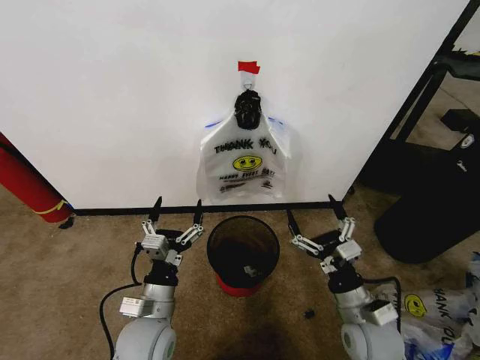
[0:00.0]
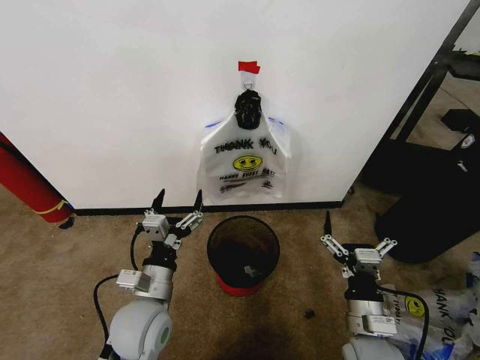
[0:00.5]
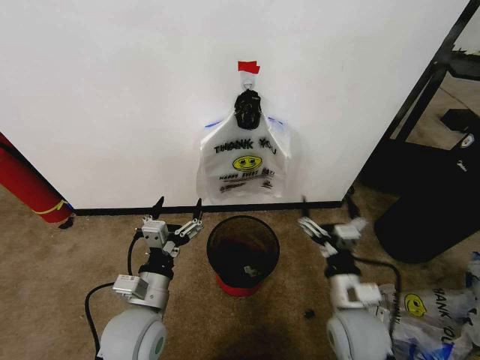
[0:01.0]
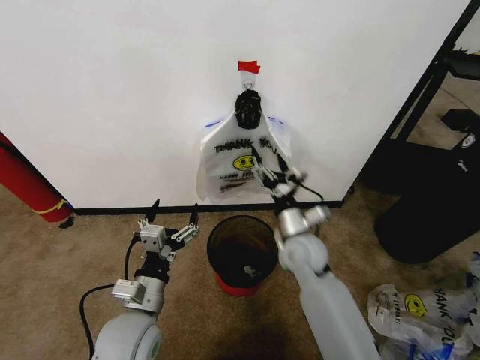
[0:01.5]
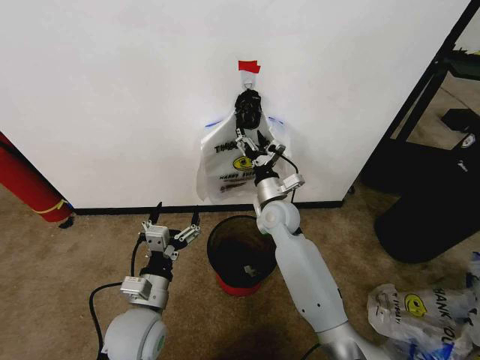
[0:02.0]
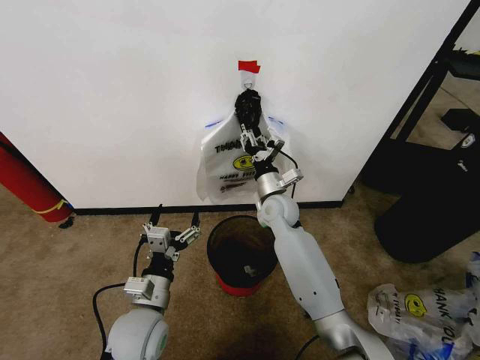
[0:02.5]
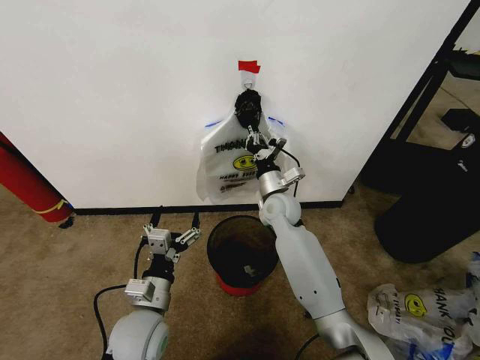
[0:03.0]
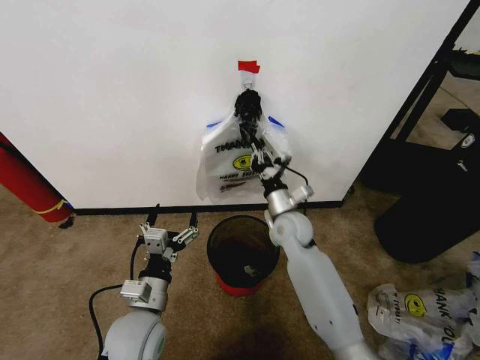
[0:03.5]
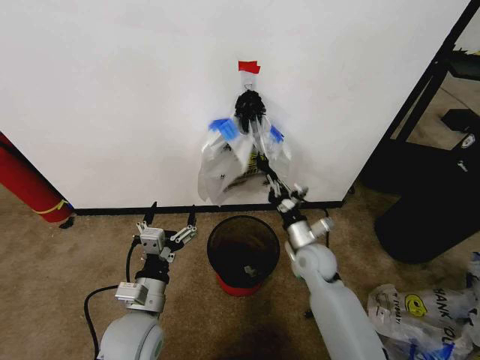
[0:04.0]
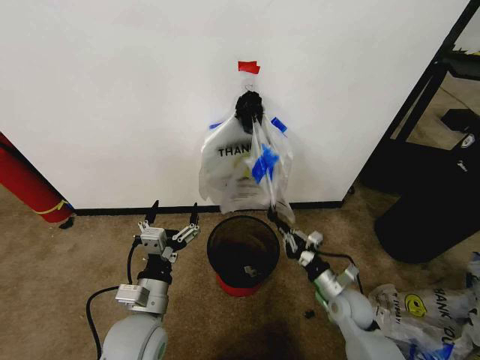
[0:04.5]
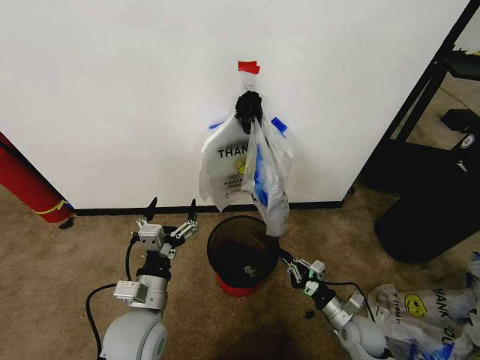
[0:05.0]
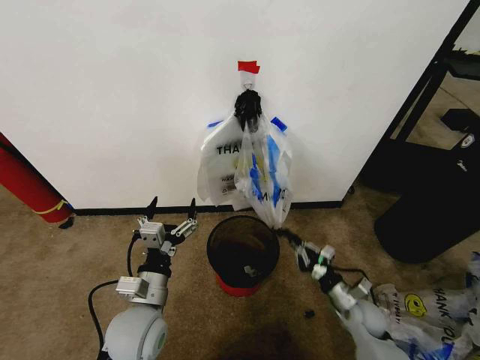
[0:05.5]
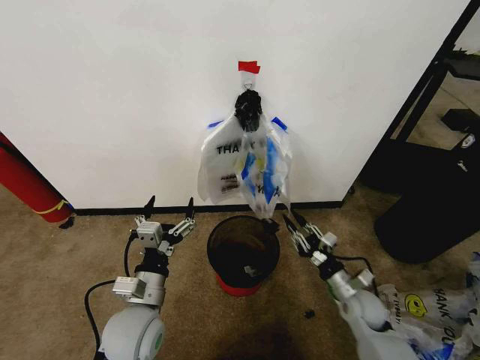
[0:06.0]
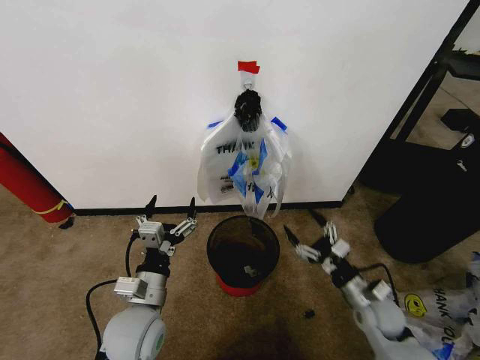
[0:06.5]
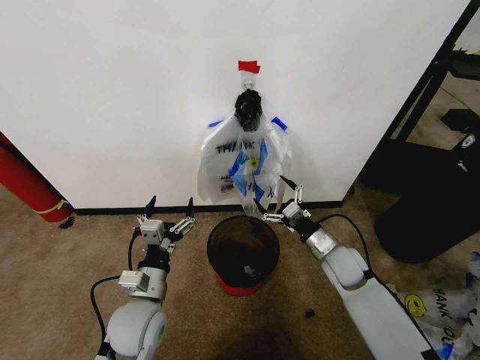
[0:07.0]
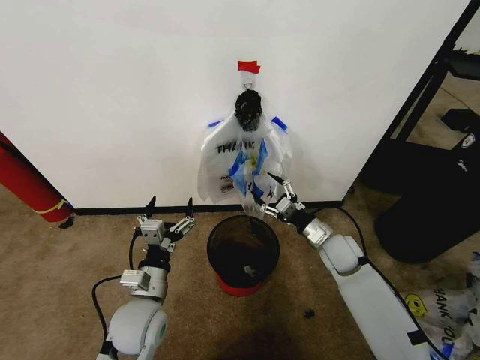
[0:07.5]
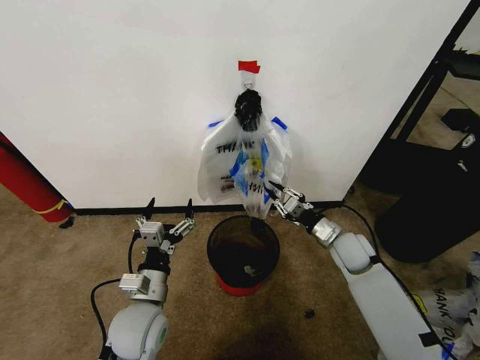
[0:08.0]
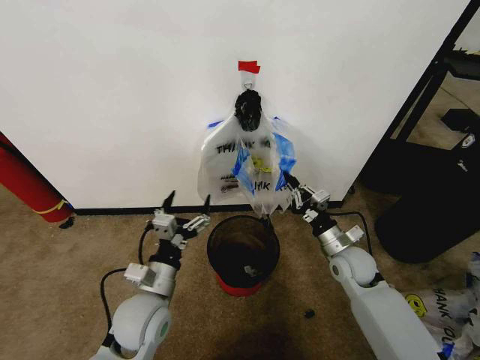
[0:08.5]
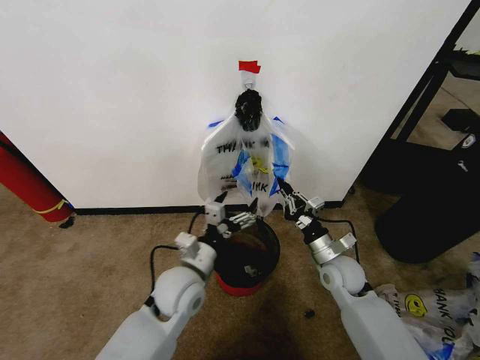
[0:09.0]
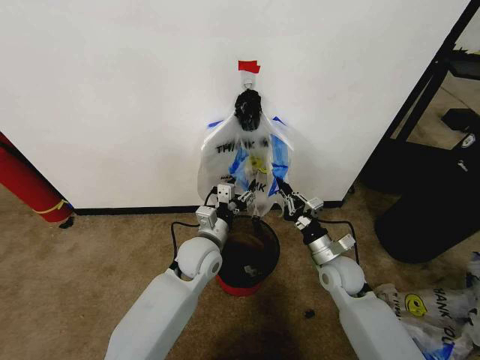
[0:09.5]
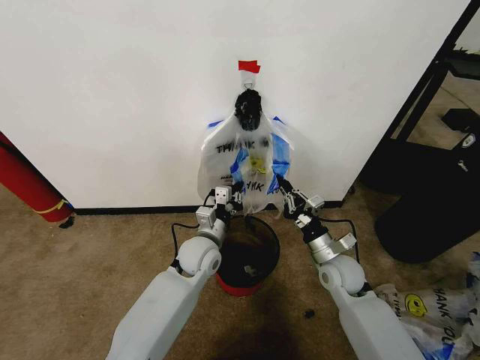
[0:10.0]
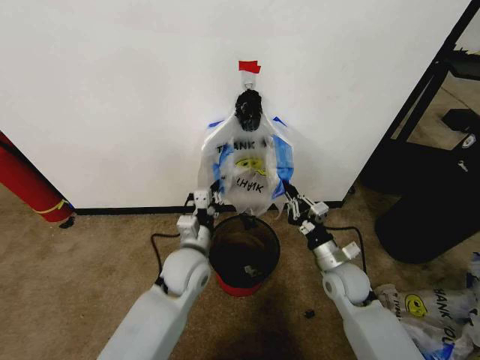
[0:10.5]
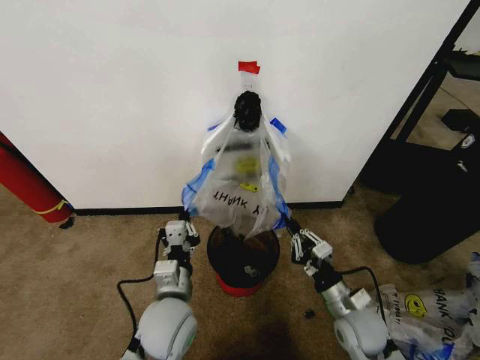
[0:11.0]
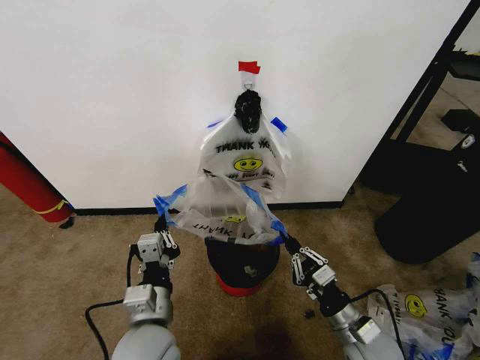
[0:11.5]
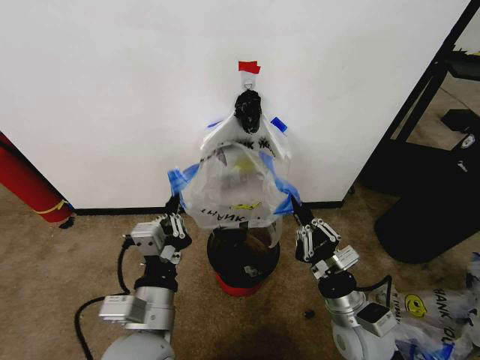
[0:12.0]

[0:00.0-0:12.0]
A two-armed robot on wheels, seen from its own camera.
Task of the whole recording: Pick up the garbage bag from the wall and place it over the trash bin.
0:02.0 to 0:04.0: The right gripper shifts approximately 15 cm to the right, backward and downward, and closes up.
0:04.0 to 0:06.0: The right gripper heads to the right, backward and downward, covering approximately 15 cm.
0:06.0 to 0:08.0: The right gripper goes roughly 15 cm forward and upward, and opens, then closes once more.
0:08.0 to 0:10.0: The right gripper moves backward, roughly 5 cm. Meanwhile the left gripper is displaced forward and to the right by approximately 20 cm, and closes up.
0:10.0 to 0:12.0: The left gripper is displaced backward and upward by some 25 cm; the right gripper goes roughly 15 cm backward.

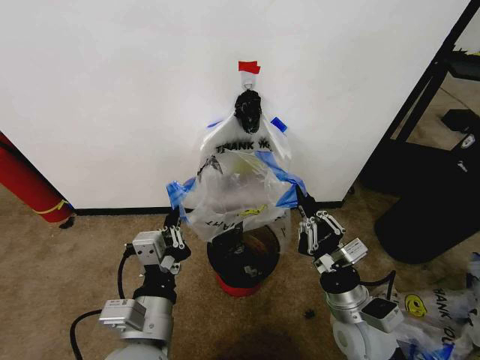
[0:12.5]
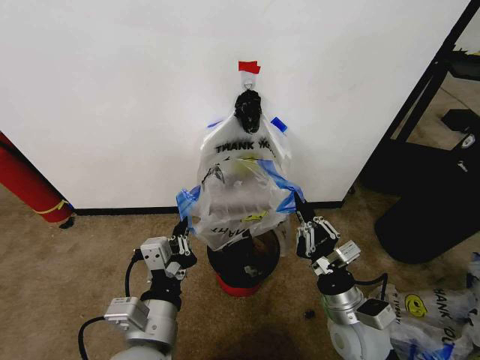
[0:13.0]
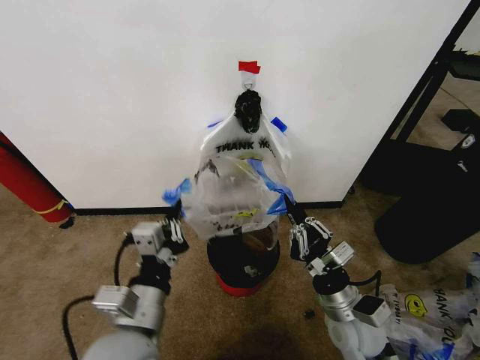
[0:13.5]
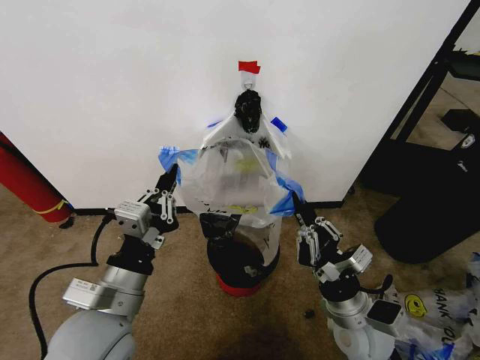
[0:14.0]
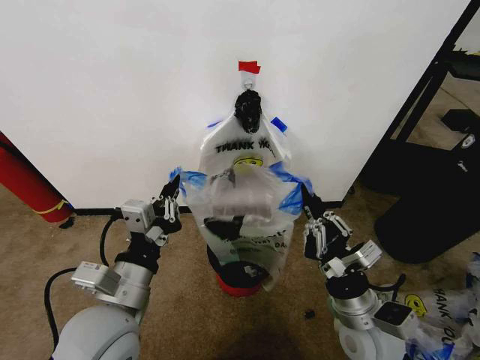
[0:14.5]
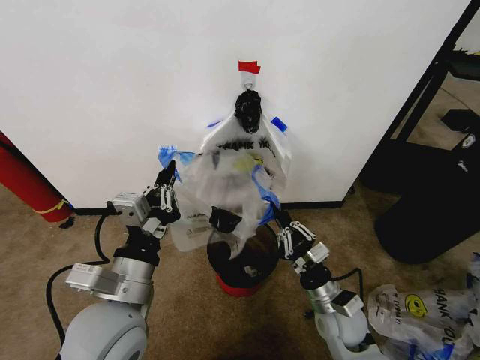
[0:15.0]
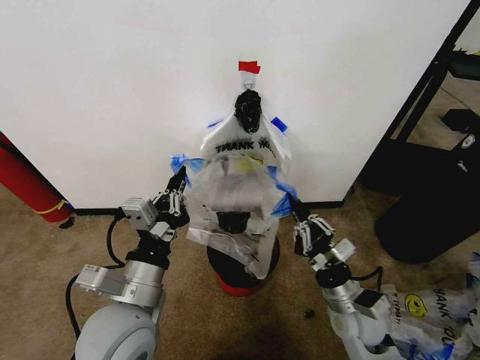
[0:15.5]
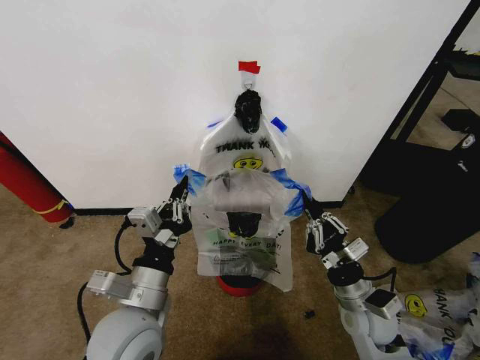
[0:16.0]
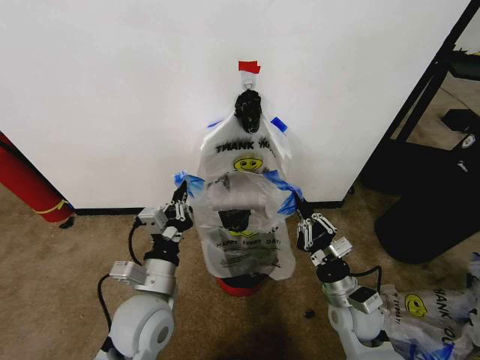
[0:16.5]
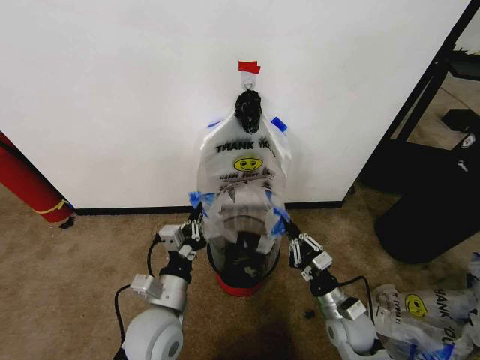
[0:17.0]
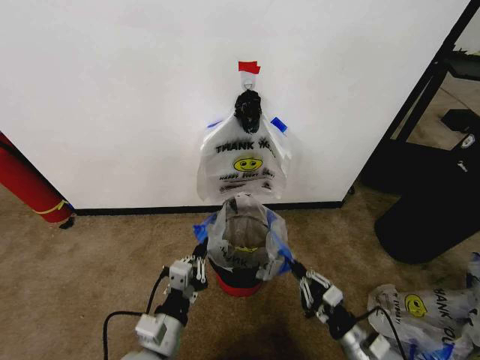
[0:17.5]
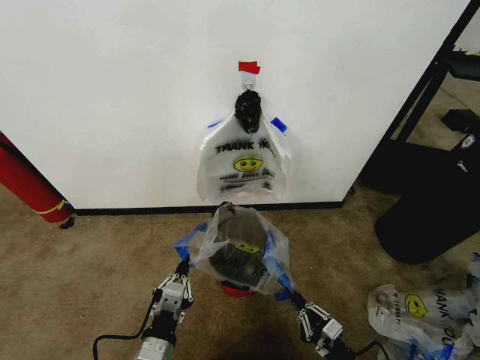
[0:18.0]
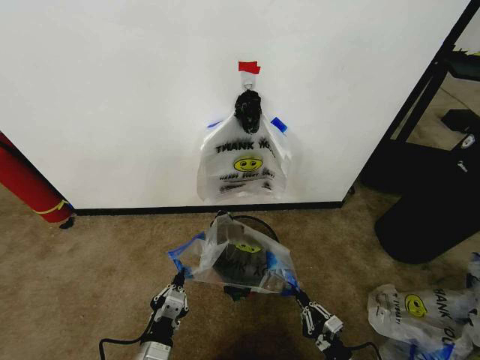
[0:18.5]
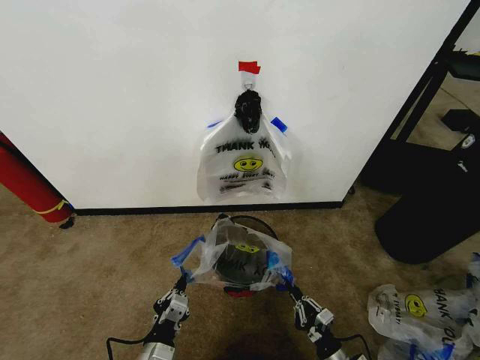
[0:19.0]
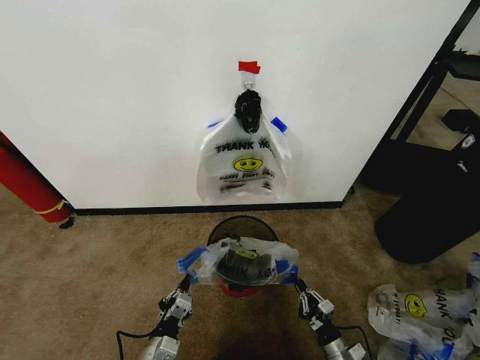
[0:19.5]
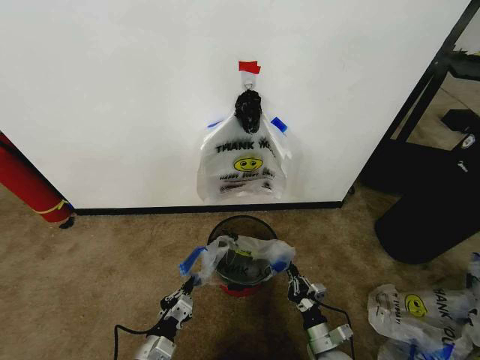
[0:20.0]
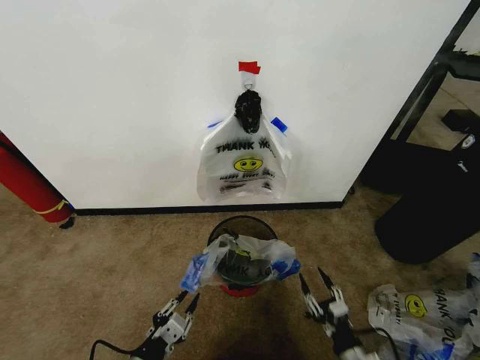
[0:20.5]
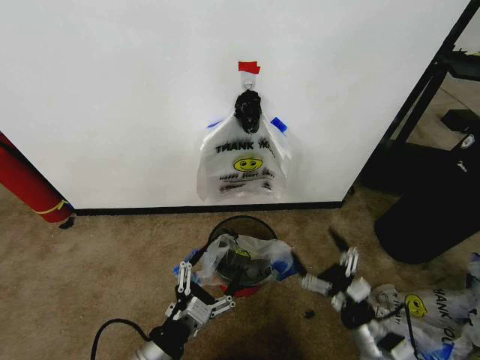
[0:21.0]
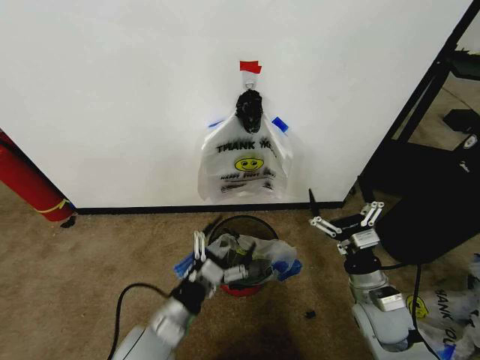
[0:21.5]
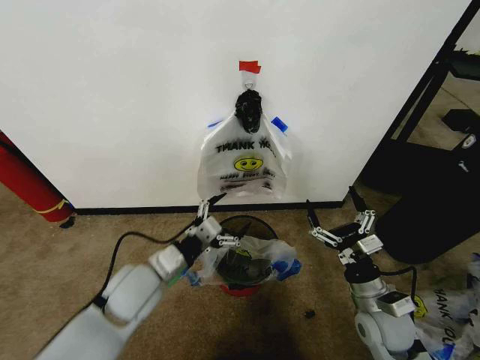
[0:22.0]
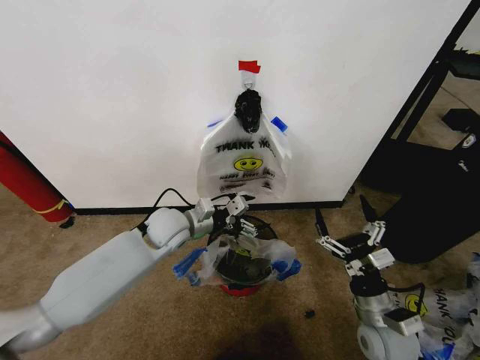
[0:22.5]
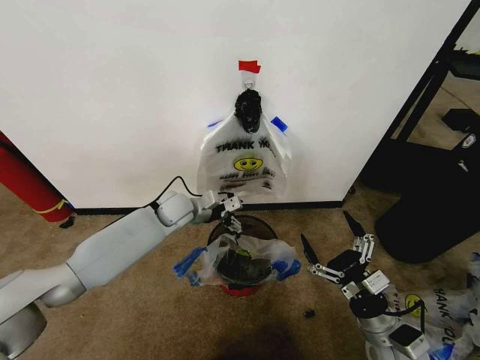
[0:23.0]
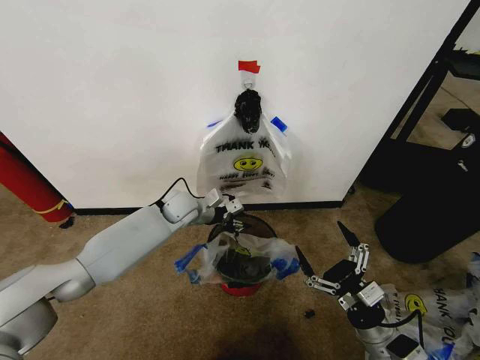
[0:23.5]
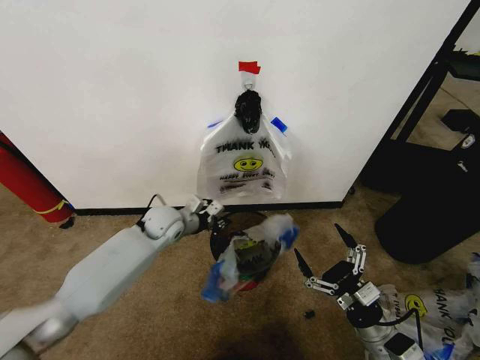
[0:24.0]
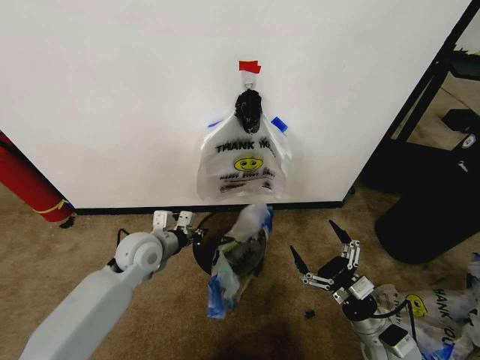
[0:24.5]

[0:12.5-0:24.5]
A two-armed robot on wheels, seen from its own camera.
Task of the whole recording: Pick up the garbage bag from the wall and place it over the trash bin.
0:12.5 to 0:14.5: The left gripper moves to the left, some 5 cm.
0:14.5 to 0:16.5: The right gripper heads downward and forward, covering approximately 10 cm; the left gripper heads downward, covering roughly 5 cm.
0:16.5 to 0:18.5: Both grippers travel together downward and backward, some 20 cm.
0:18.5 to 0:20.5: The right gripper opens up. The left gripper heads to the left, covering roughly 5 cm.
0:20.5 to 0:22.5: The left gripper heads forward, covering about 35 cm, and opens its fingers. The right gripper travels upward and forward by roughly 15 cm, and opens up.
0:22.5 to 0:24.5: The left gripper shifts about 10 cm to the left and backward, and closes up.

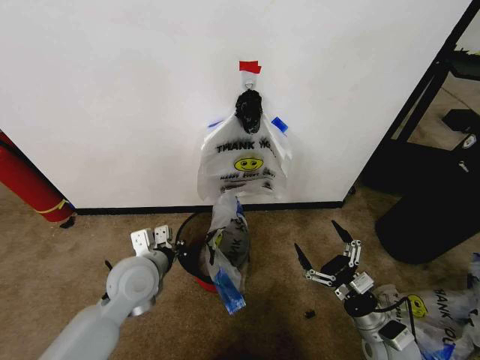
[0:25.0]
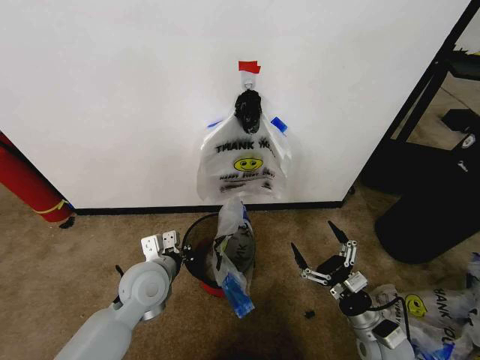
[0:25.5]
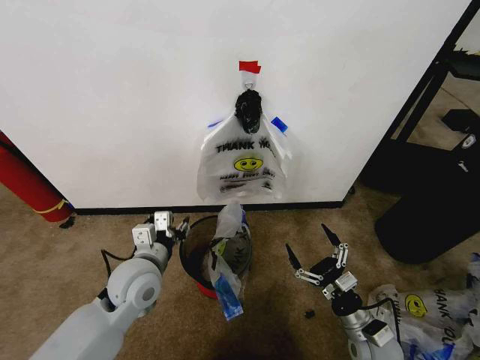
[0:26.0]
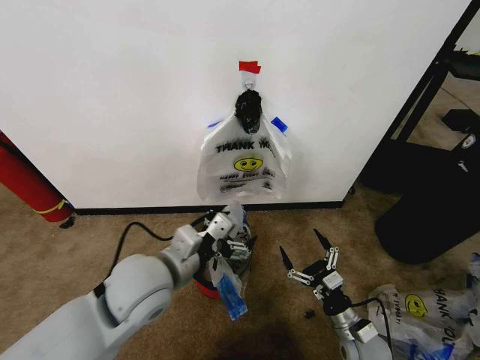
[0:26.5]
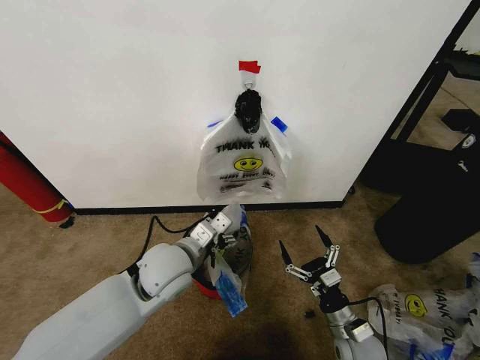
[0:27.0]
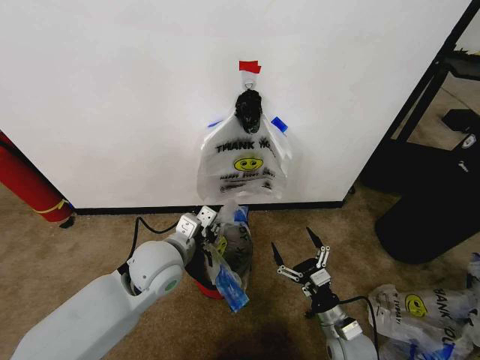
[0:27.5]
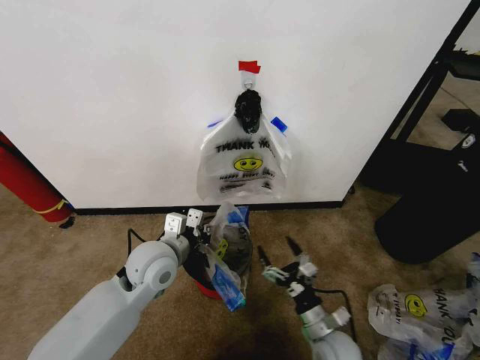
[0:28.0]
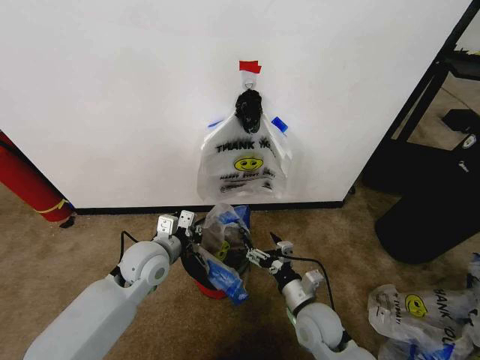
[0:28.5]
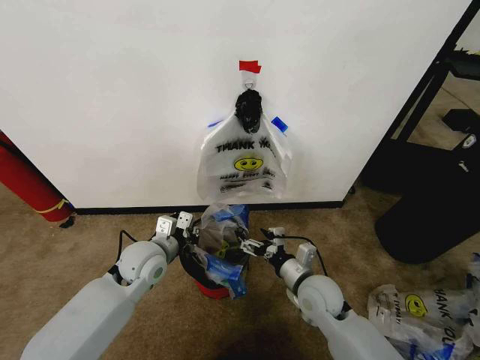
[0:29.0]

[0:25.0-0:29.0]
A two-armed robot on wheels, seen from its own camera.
Task of the whole recording: Pick up the garbage bag from the wall and place it over the trash bin.
0:25.0 to 0:27.0: The right gripper goes some 5 cm to the left. Meanwhile the left gripper goes roughly 5 cm to the right, reaches approximately 10 cm upward, then returns, and opens up.
0:27.0 to 0:29.0: The left gripper is displaced to the left and downward by roughly 10 cm, and closes, while the right gripper heads forward, to the left and upward, covering some 15 cm.
